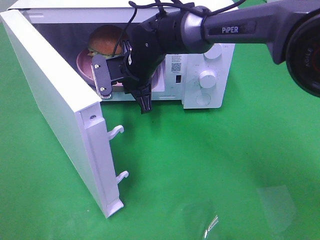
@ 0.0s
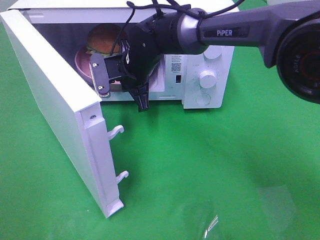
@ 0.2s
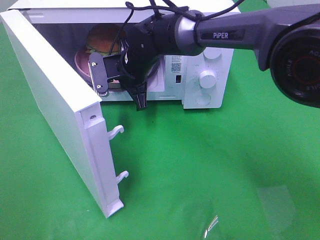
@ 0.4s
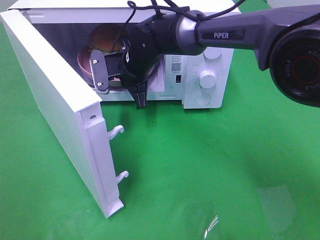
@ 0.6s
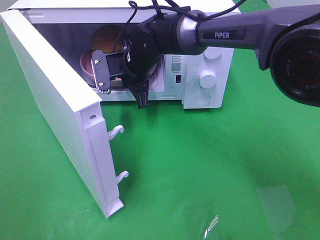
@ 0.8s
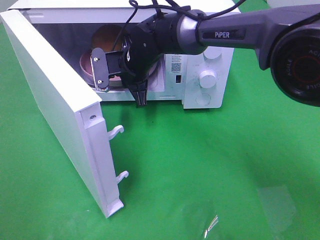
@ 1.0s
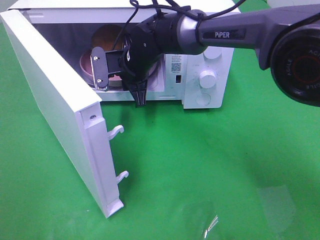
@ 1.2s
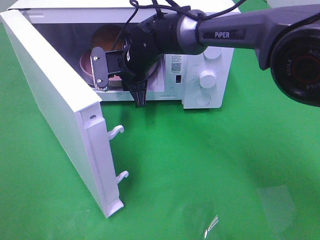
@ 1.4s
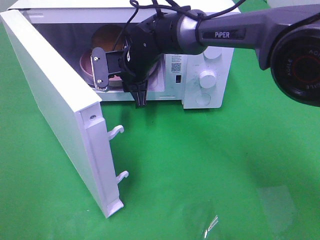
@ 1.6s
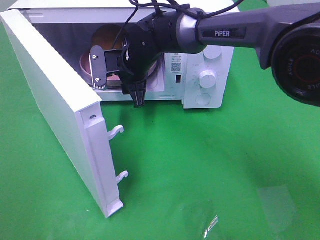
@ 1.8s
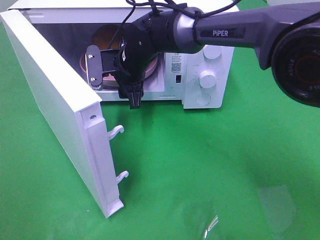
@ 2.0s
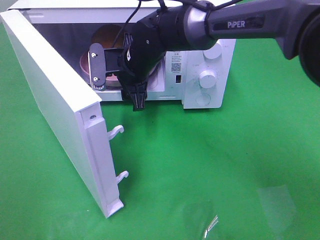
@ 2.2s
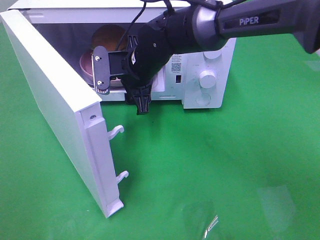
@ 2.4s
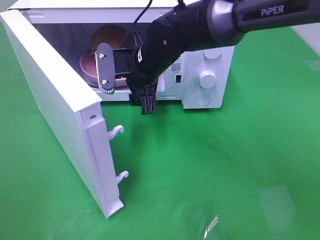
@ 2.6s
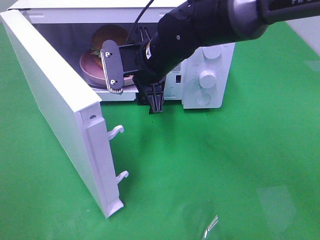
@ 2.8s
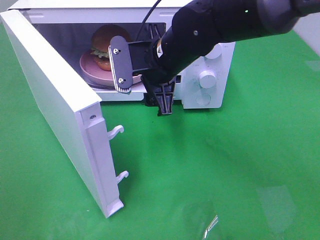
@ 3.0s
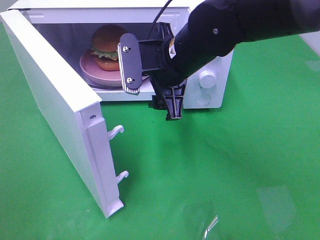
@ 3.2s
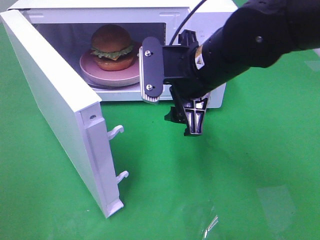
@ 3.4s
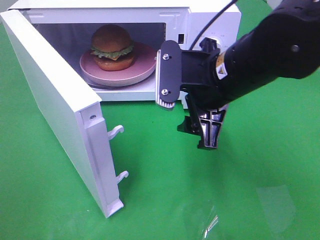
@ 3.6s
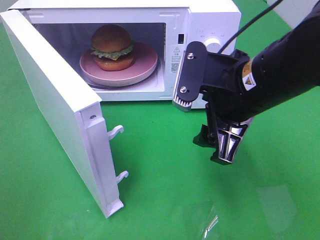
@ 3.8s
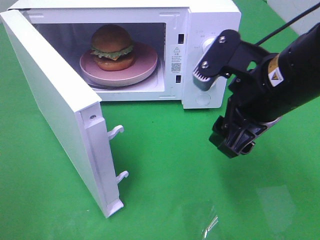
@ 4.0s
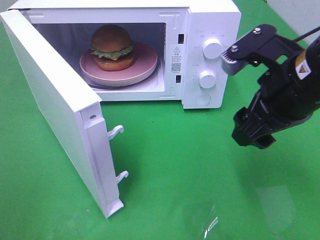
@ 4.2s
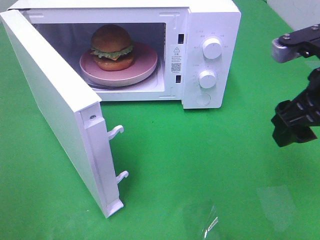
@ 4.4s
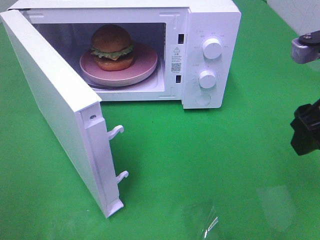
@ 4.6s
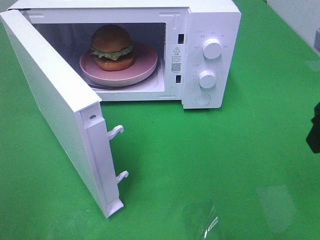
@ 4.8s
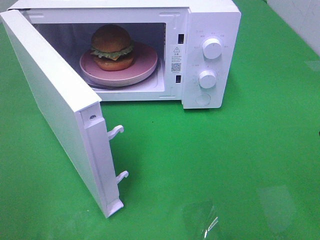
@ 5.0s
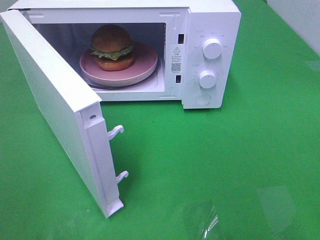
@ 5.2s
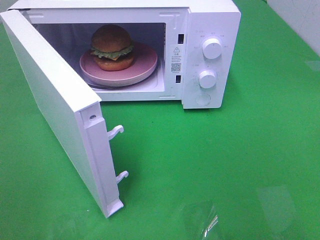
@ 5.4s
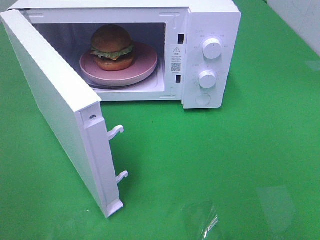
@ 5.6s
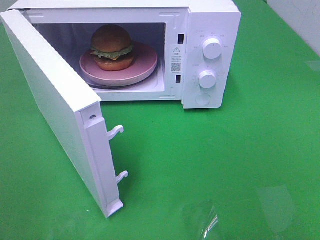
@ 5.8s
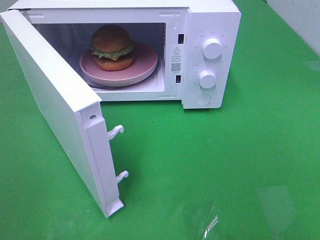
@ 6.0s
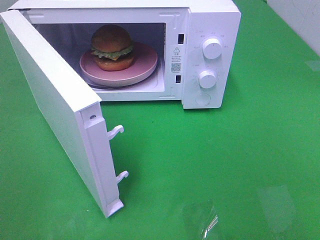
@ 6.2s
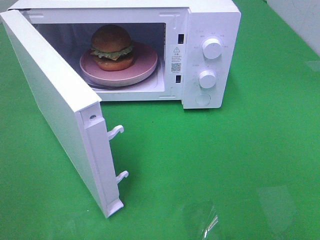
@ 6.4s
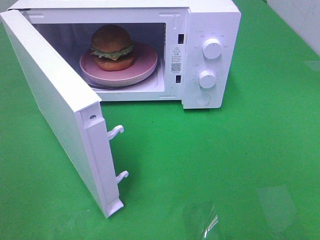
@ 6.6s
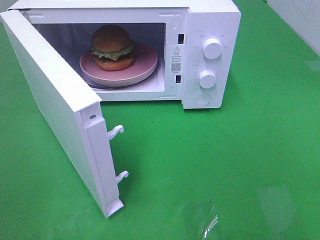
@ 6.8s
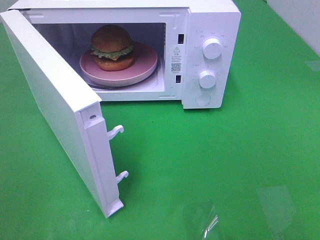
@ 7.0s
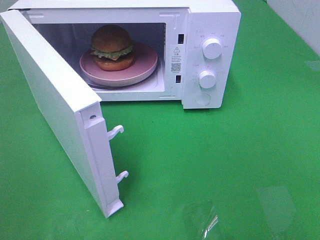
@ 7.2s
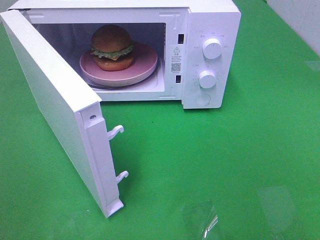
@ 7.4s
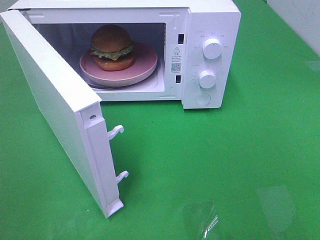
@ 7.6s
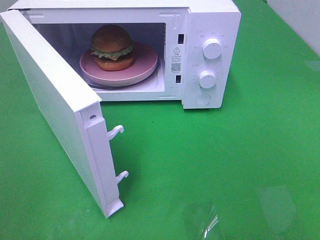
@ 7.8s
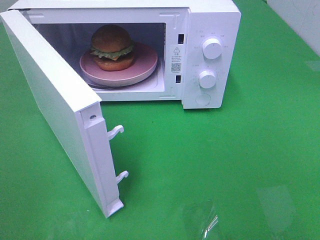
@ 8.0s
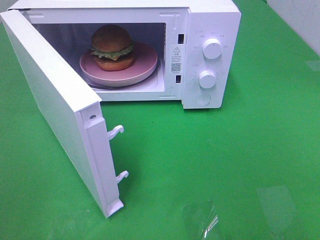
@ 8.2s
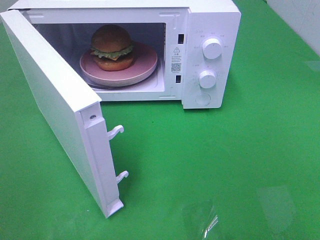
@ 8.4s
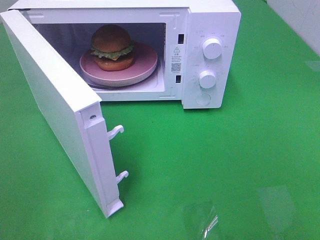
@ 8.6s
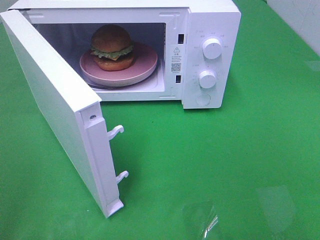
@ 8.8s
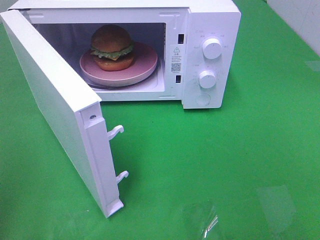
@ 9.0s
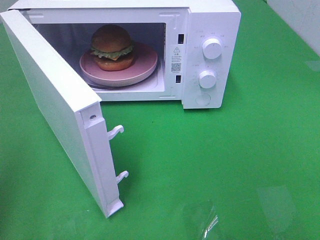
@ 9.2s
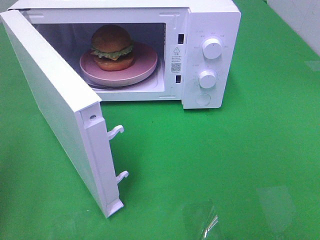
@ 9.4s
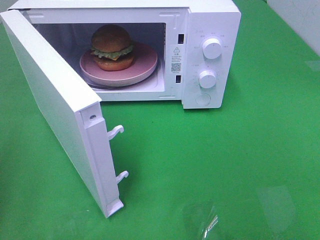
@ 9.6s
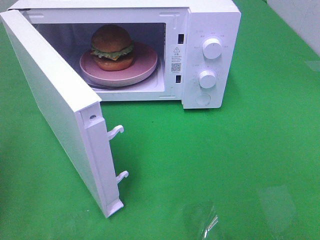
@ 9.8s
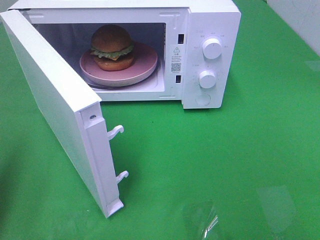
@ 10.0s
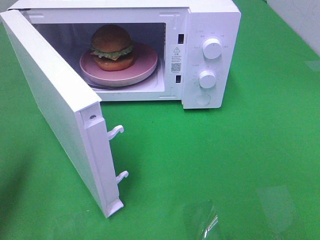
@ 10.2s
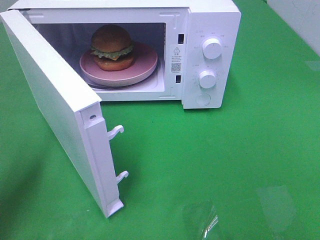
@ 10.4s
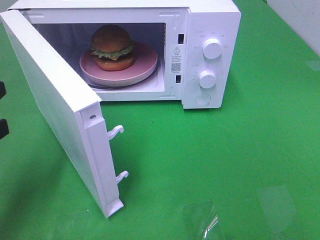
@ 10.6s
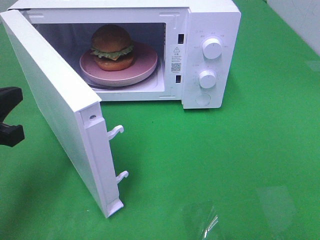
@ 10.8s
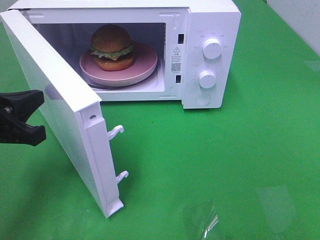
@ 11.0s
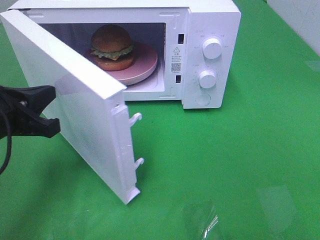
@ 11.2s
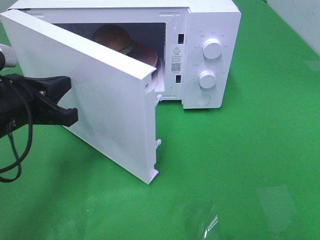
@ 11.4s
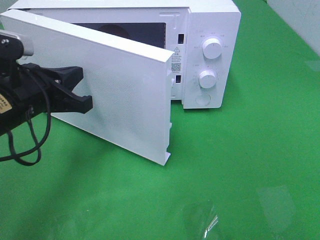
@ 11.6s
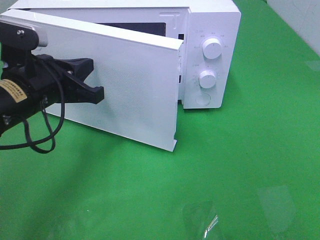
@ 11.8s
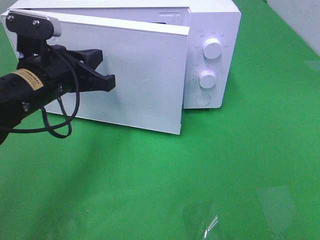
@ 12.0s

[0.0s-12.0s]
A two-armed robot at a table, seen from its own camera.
Task of the whole recording: Heat the burger.
0.0s to 1.6s: The right gripper opens up.
1.6s to 3.0s: The right gripper is displaced backward, upward and to the right by approximately 10 cm, and opens its fingers.
3.0s to 4.4s: The right gripper heads to the right and backward, covering about 25 cm.
4.4s to 6.0s: The right gripper heads backward, covering approximately 20 cm.
9.0s to 10.4s: The left gripper goes roughly 15 cm forward and downward.
10.4s to 12.0s: The left gripper goes roughly 20 cm to the right and forward.

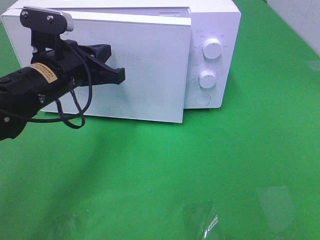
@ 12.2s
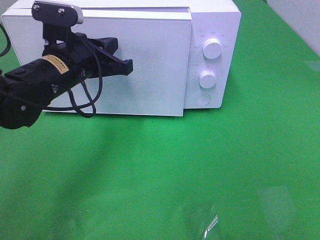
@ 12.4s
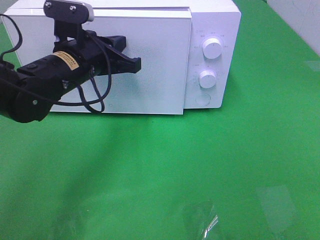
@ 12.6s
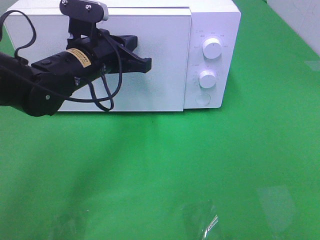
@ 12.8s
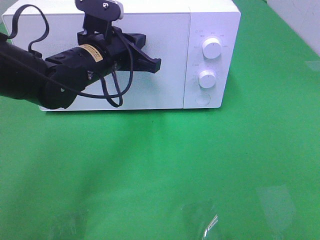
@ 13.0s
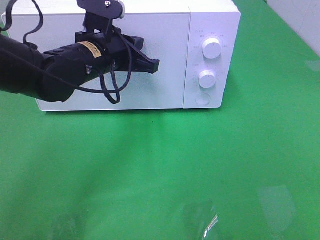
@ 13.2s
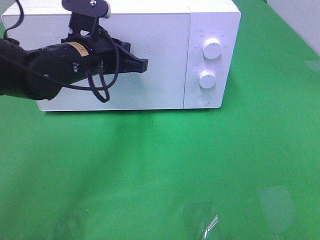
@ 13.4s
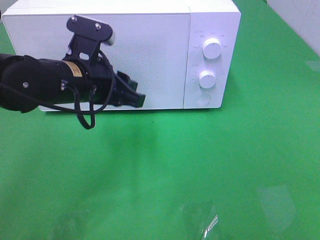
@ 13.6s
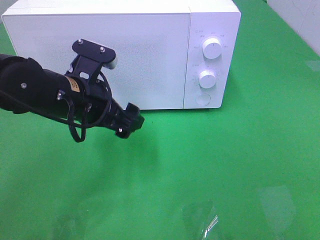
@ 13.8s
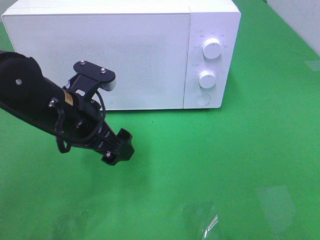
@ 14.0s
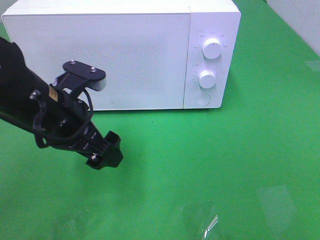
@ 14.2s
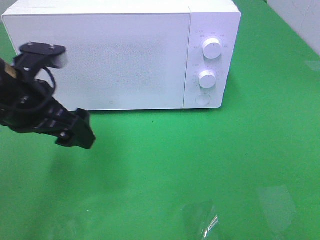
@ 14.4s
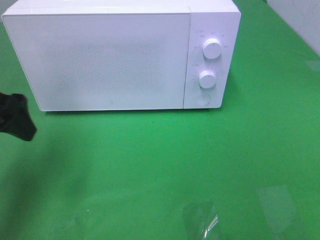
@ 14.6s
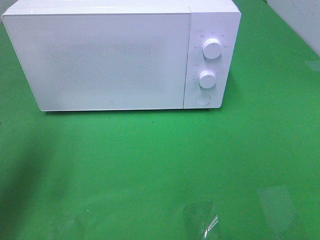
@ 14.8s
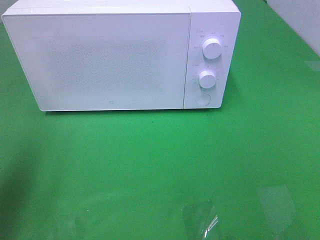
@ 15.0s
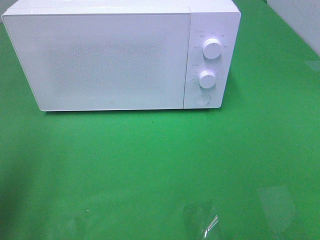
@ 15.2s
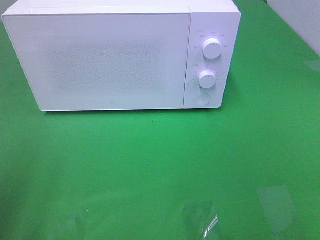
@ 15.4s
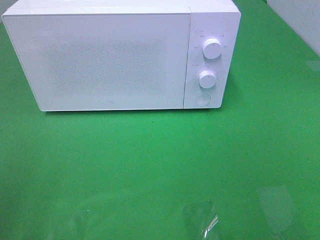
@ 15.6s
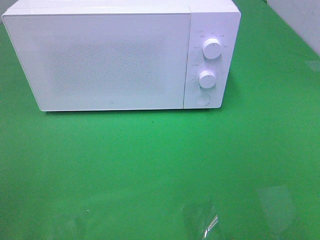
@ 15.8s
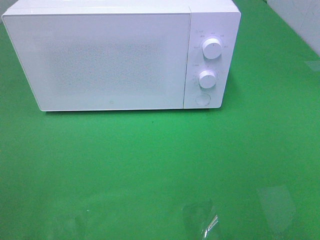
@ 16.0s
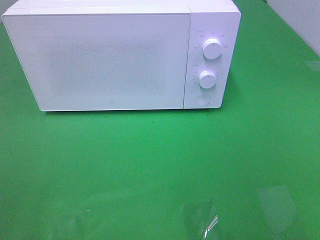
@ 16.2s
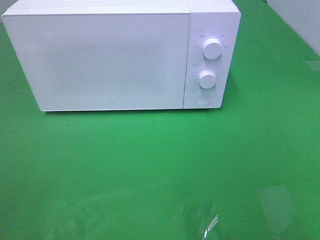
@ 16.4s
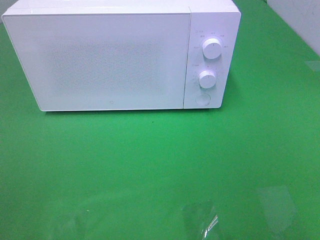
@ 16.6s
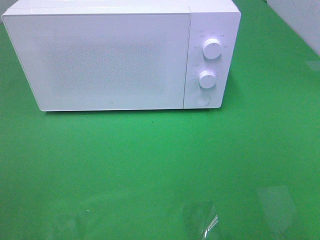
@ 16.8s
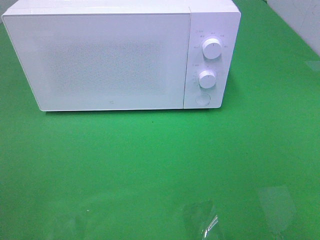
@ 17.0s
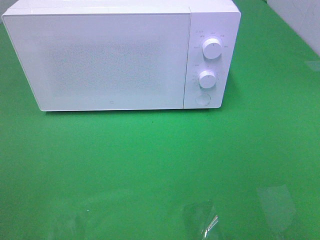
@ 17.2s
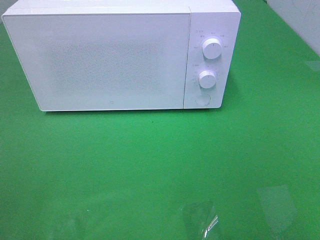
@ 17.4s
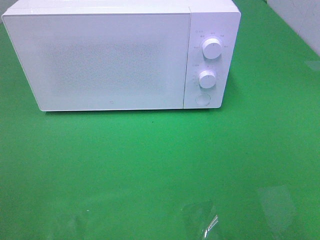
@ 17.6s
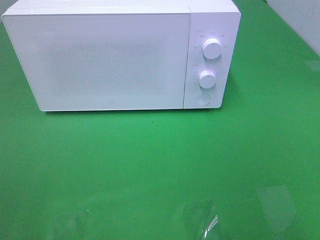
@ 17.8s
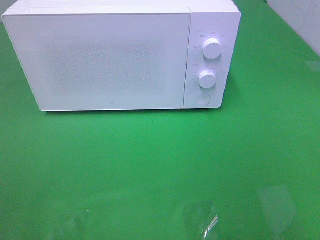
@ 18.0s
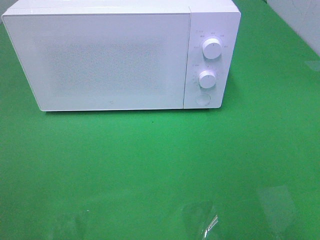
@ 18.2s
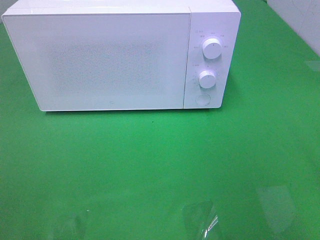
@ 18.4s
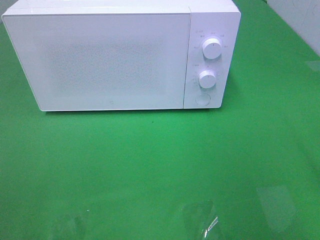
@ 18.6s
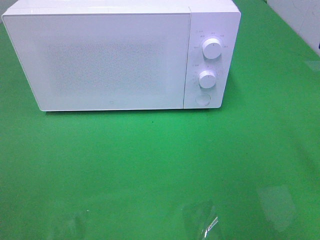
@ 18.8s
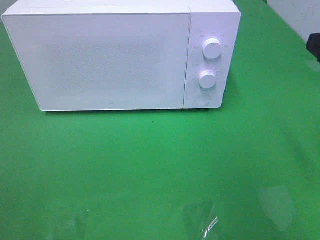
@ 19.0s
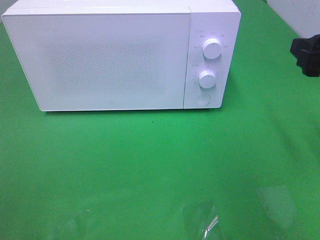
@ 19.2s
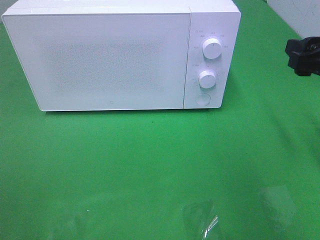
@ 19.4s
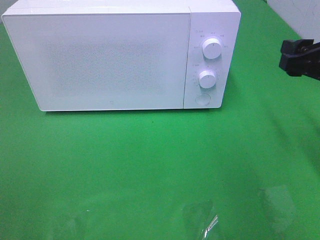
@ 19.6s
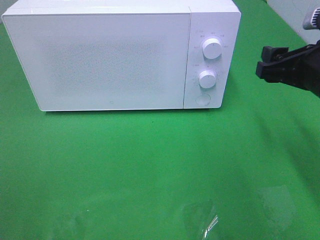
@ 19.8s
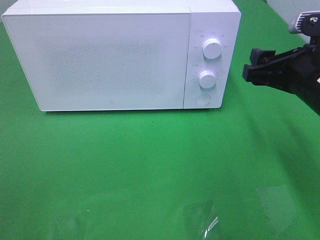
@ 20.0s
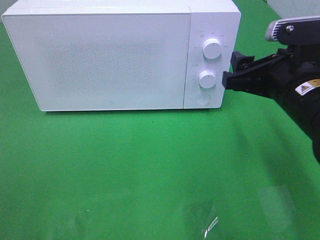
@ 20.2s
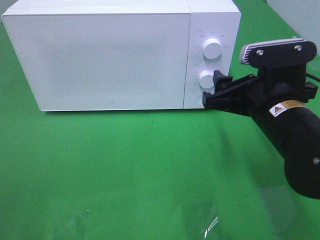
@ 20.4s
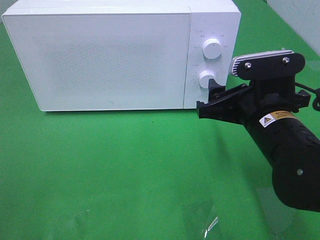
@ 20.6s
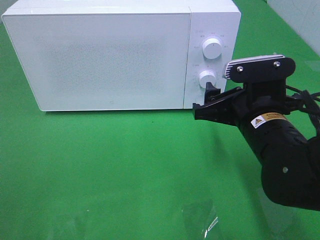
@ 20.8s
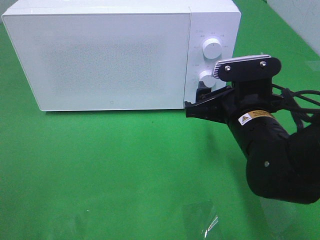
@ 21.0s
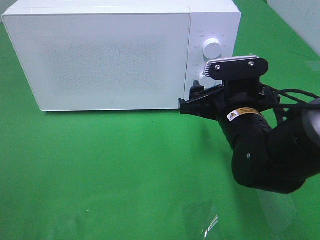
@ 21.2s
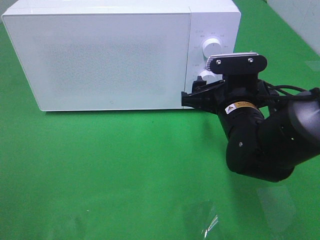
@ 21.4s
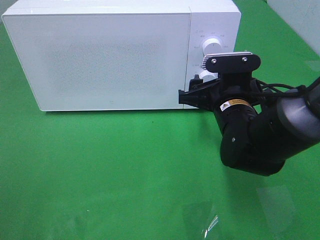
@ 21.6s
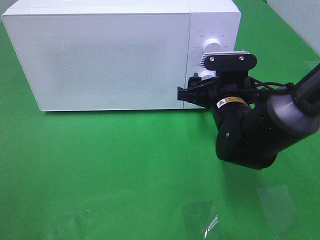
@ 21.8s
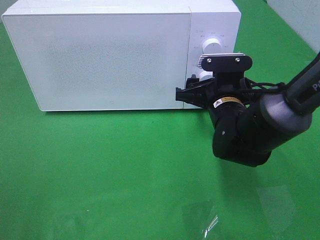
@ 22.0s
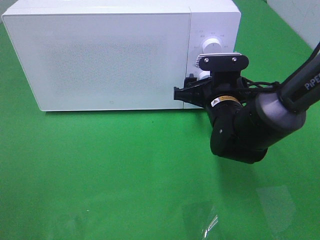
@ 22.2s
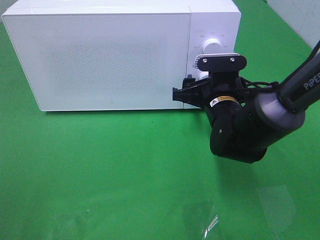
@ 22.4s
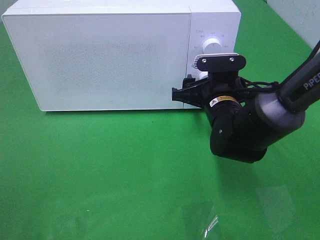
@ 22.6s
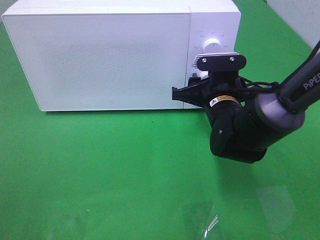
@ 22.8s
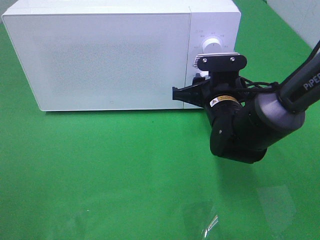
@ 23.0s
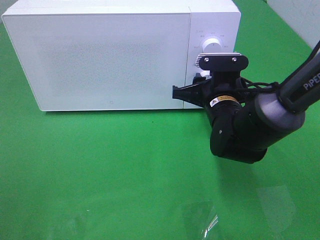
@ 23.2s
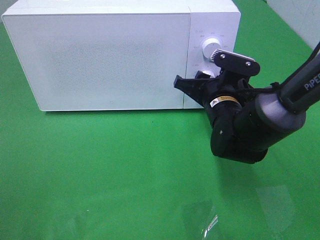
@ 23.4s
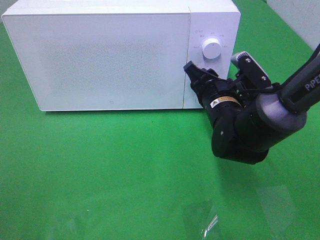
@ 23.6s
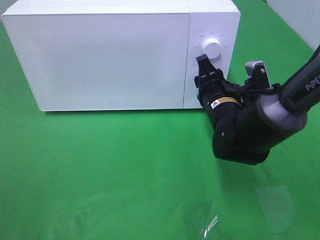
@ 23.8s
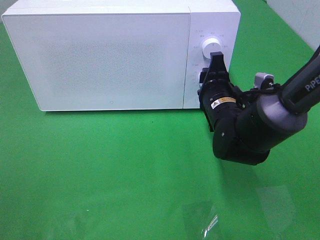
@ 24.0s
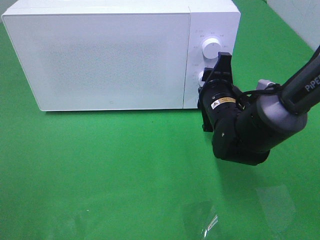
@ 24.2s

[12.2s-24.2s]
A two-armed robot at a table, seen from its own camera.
Task of the whole recording: Heat the burger.
12.2s to 13.8s: The left gripper opens up.
13.8s to 15.2s: The left gripper shifts some 25 cm to the left, backward and upward.
15.2s to 16.6s: The left gripper goes roughly 15 cm backward.
18.2s to 19.8s: The right gripper travels forward and downward by some 20 cm.
19.8s to 21.2s: The right gripper shifts approximately 15 cm to the left and downward.
21.2s to 22.6s: The right gripper is displaced forward by roughly 5 cm.
